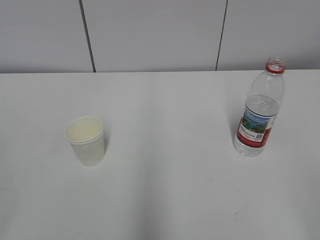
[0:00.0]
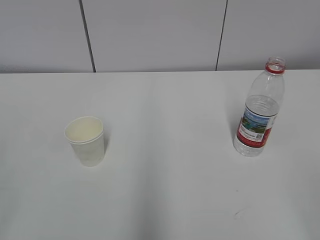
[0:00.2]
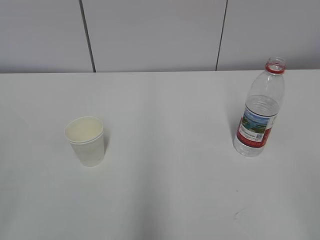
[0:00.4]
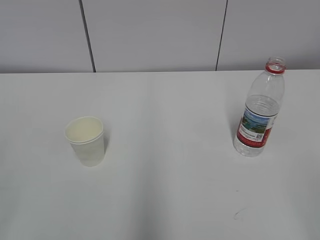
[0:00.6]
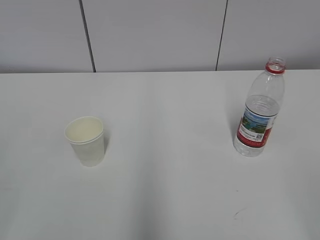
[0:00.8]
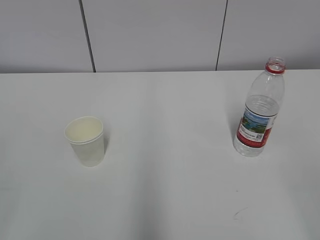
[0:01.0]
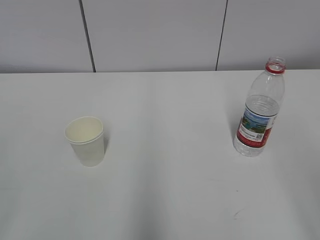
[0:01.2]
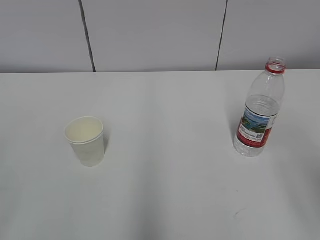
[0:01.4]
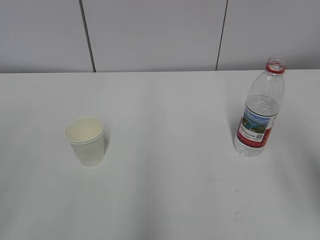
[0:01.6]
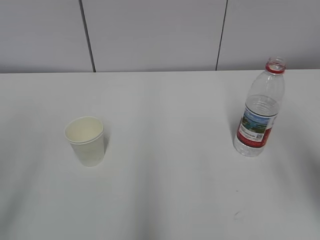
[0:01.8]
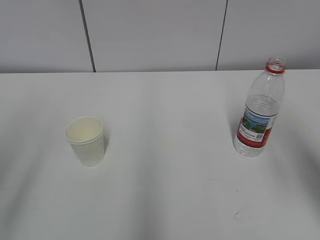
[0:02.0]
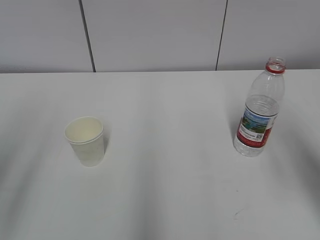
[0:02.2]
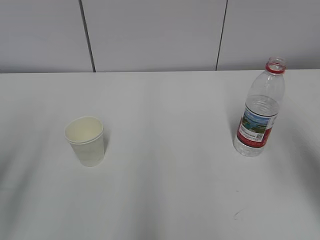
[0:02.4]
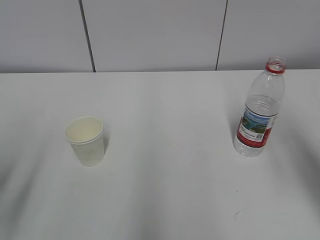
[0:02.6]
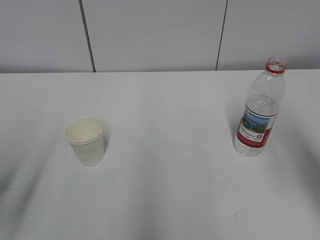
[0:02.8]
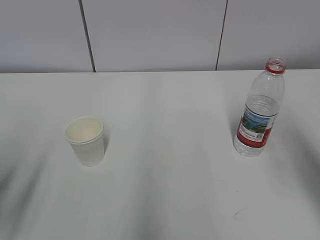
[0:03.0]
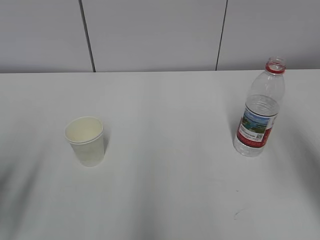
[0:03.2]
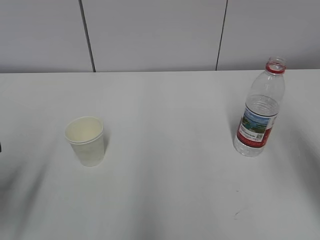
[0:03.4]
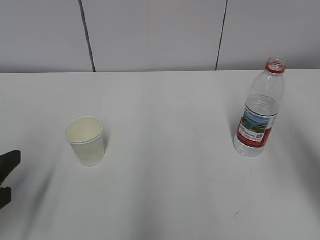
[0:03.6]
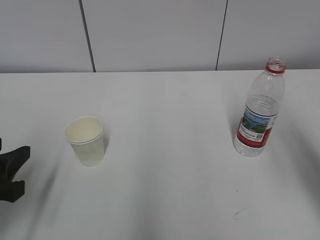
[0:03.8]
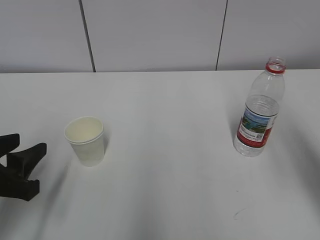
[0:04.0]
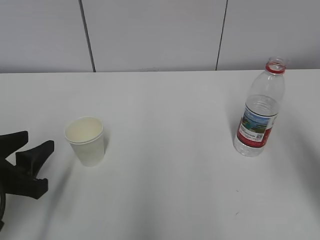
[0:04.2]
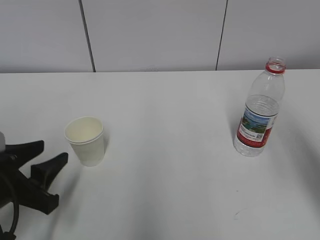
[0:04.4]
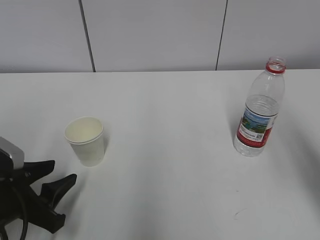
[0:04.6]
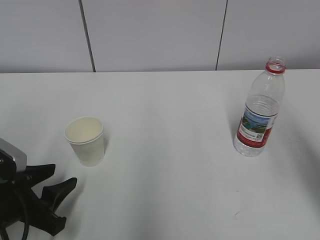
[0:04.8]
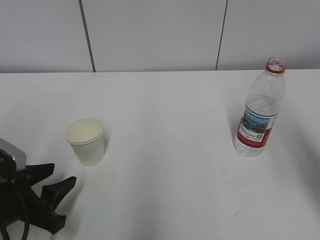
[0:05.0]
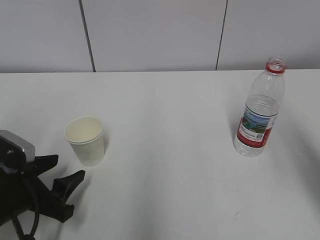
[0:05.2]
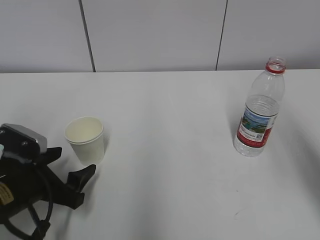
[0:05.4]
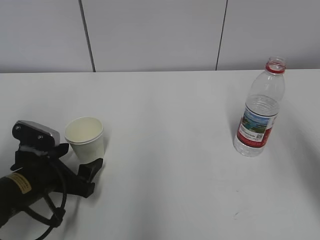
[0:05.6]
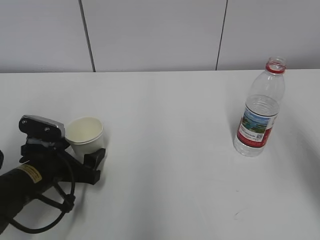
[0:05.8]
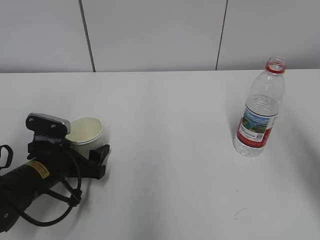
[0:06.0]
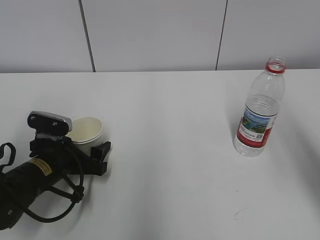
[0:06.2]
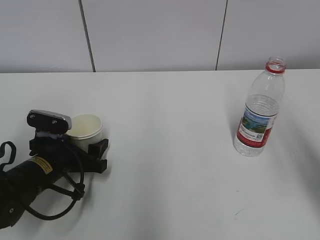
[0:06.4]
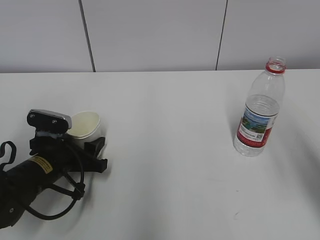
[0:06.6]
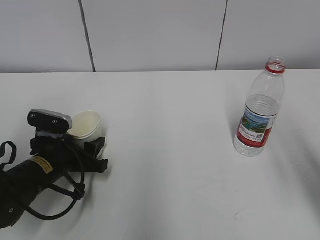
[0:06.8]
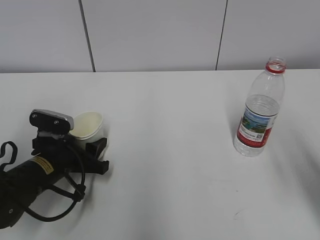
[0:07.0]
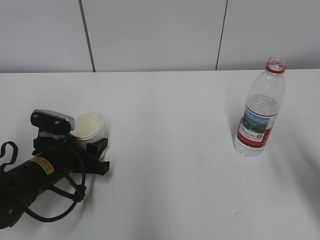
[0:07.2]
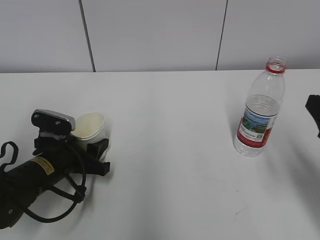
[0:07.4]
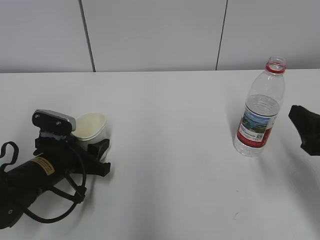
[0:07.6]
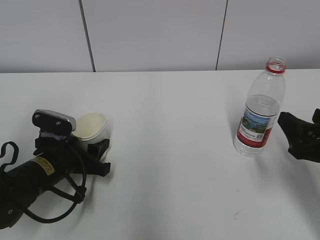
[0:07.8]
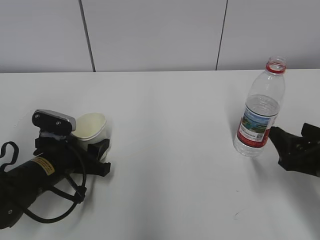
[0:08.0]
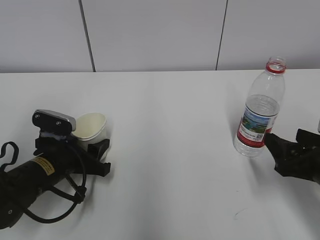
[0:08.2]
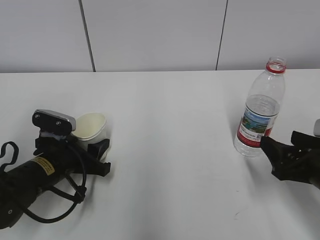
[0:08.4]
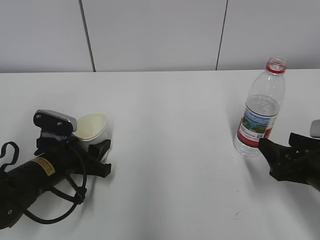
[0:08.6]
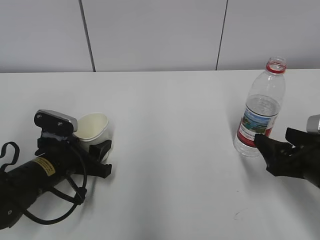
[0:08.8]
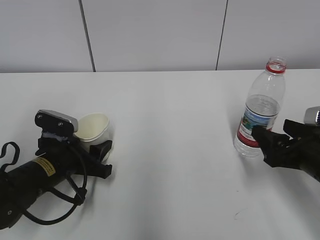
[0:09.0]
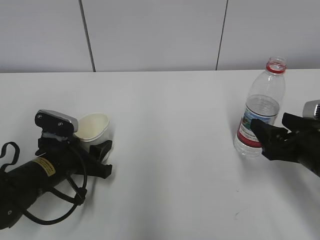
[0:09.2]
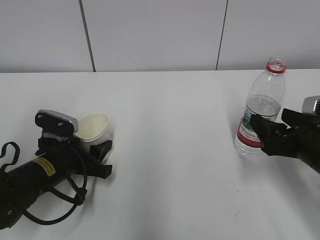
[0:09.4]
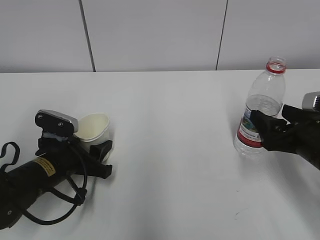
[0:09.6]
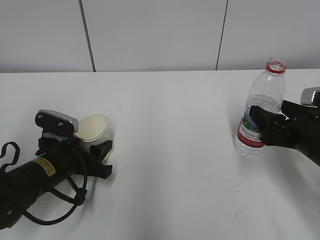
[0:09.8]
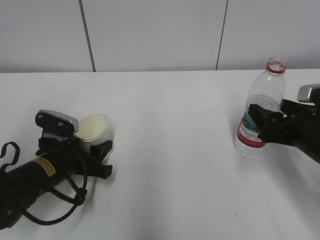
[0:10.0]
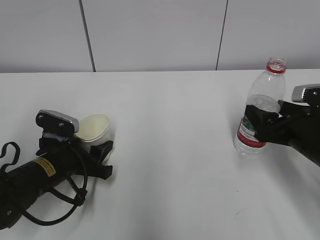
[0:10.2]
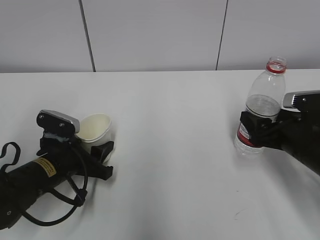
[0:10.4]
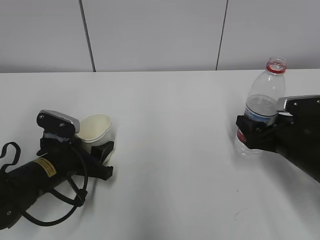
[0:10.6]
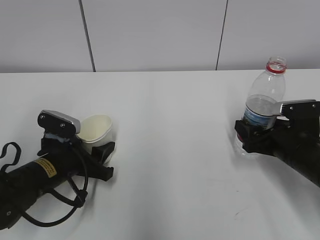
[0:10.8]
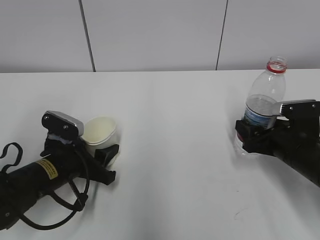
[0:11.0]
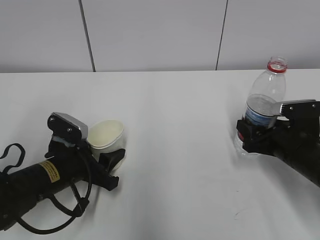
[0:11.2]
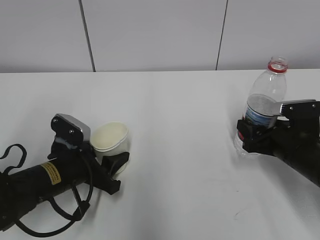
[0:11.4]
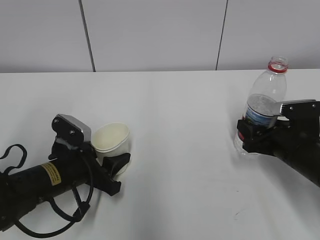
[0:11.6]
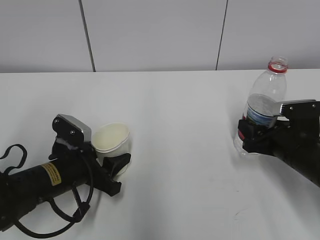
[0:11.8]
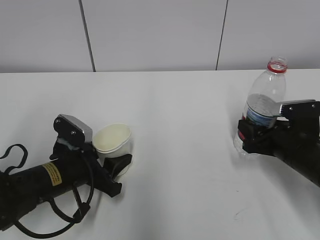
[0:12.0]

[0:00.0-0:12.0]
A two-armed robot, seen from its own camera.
Step, 0:00.0 to 0:05.4: Grab the paper cup with the left hand.
Step, 0:05.6 to 0:09.2: Grab the water bottle with the right hand.
0:01.6 to 0:03.0: The left gripper goes about 15 cm forward and downward.
0:03.0 to 0:04.4: The left gripper moves downward, forward and to the right, approximately 10 cm.
0:04.4 to 0:06.0: The left gripper heads forward and downward, covering roughly 10 cm, and opens up.
0:06.0 to 0:07.6: The right gripper heads downward, covering some 15 cm; the left gripper closes.
0:07.6 to 0:09.0: The right gripper moves downward, approximately 5 cm.
0:09.0 to 0:10.4: The right gripper moves about 5 cm.
0:10.4 to 0:12.0: The right gripper closes up.

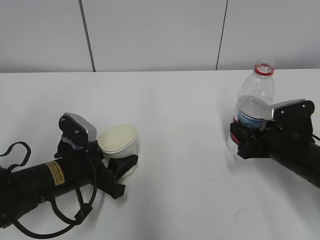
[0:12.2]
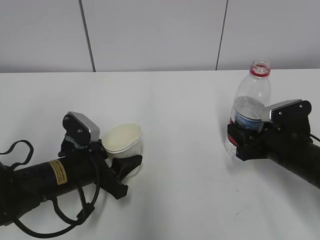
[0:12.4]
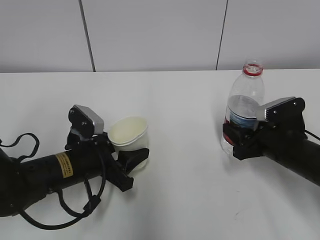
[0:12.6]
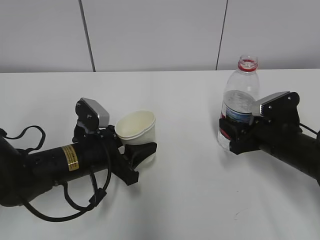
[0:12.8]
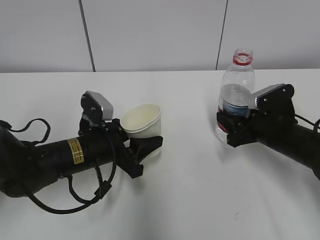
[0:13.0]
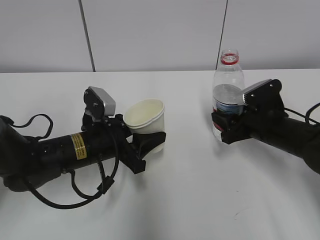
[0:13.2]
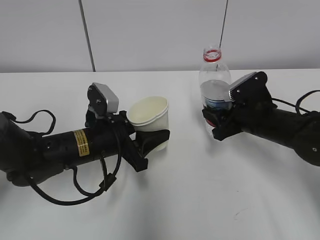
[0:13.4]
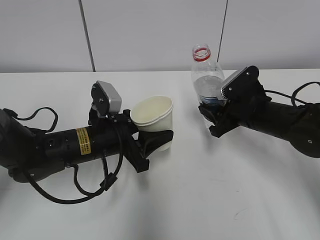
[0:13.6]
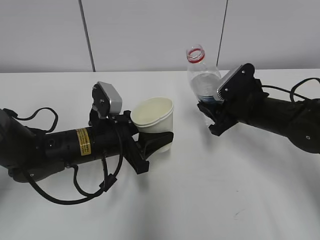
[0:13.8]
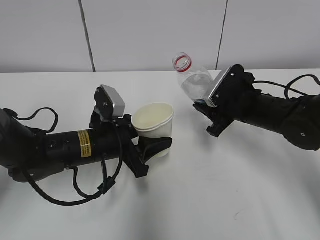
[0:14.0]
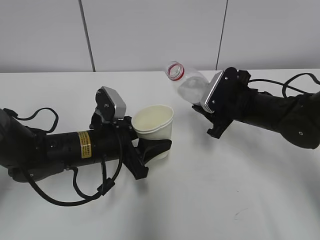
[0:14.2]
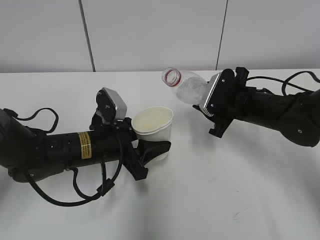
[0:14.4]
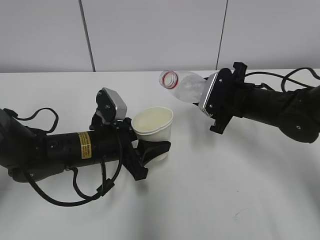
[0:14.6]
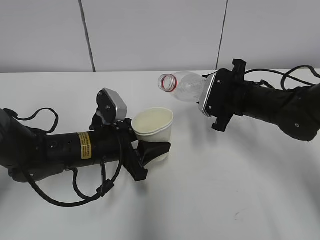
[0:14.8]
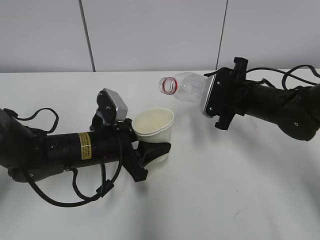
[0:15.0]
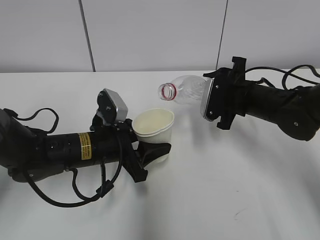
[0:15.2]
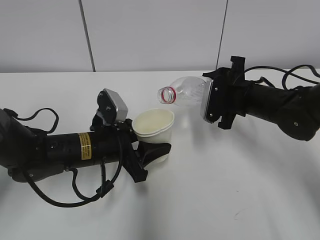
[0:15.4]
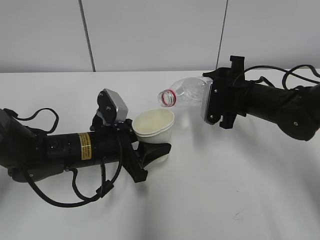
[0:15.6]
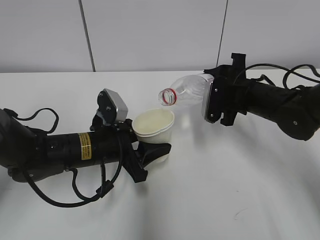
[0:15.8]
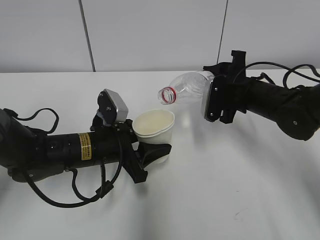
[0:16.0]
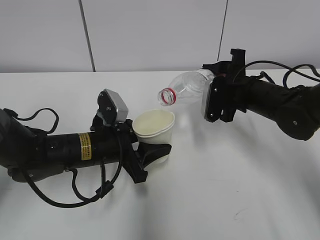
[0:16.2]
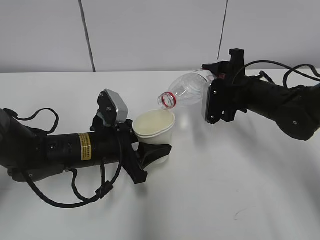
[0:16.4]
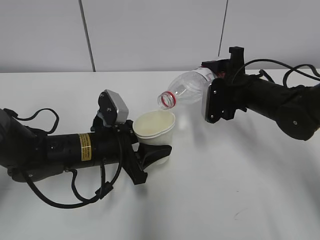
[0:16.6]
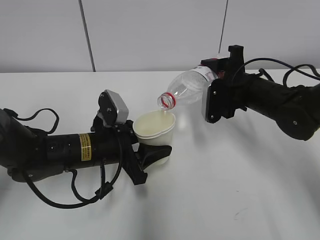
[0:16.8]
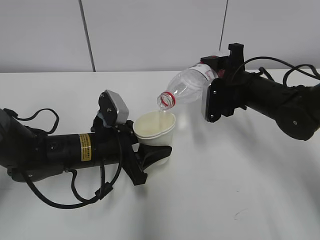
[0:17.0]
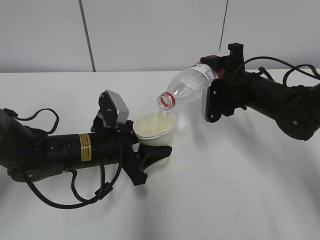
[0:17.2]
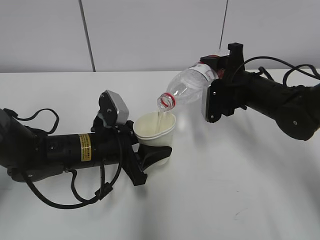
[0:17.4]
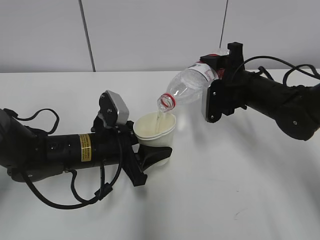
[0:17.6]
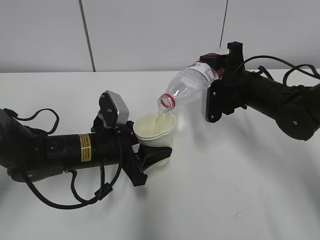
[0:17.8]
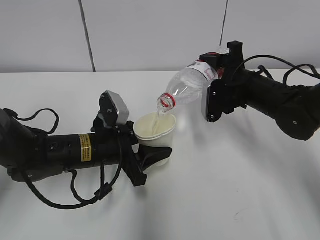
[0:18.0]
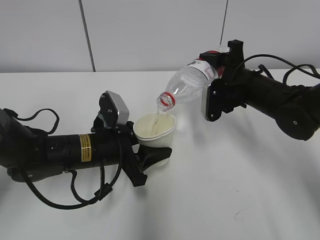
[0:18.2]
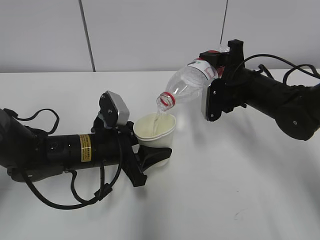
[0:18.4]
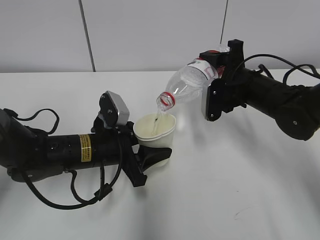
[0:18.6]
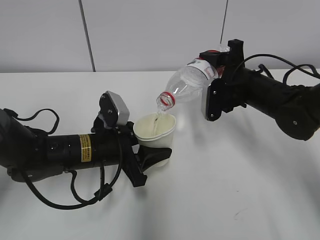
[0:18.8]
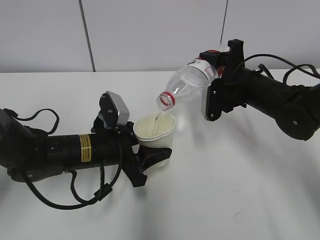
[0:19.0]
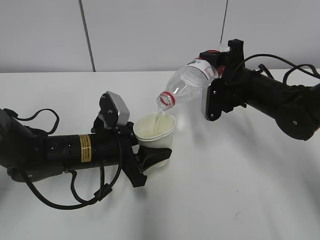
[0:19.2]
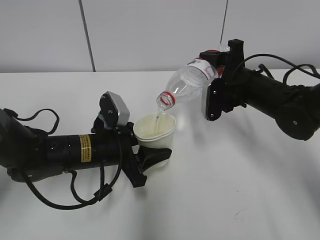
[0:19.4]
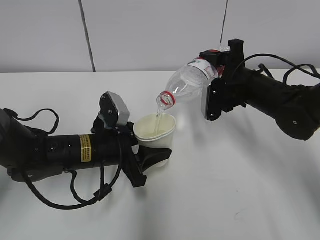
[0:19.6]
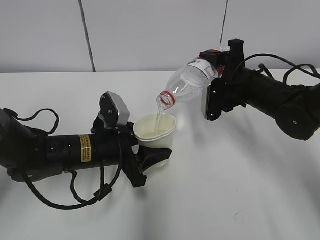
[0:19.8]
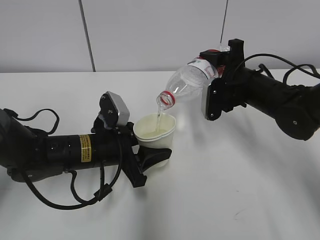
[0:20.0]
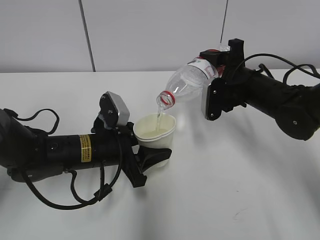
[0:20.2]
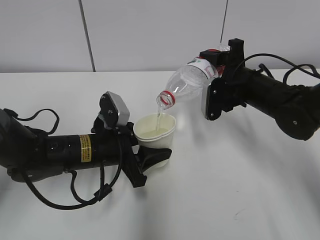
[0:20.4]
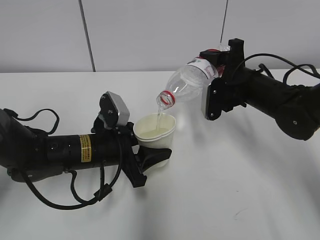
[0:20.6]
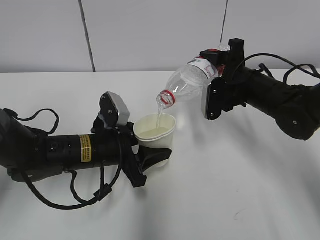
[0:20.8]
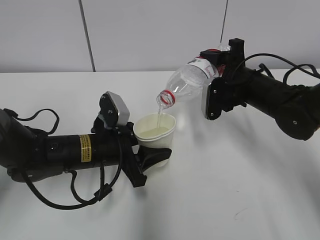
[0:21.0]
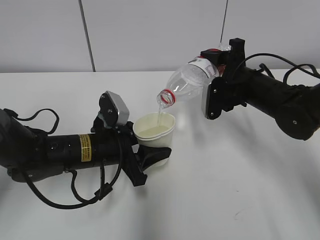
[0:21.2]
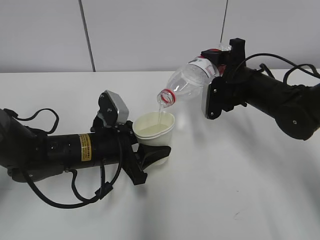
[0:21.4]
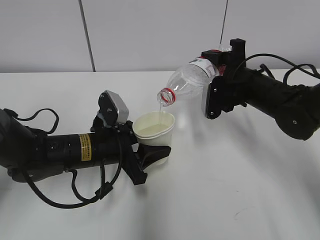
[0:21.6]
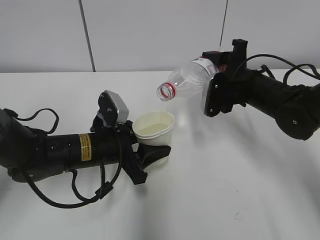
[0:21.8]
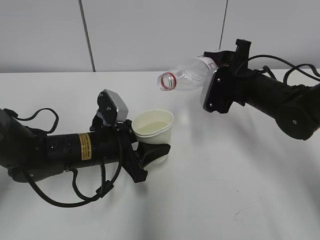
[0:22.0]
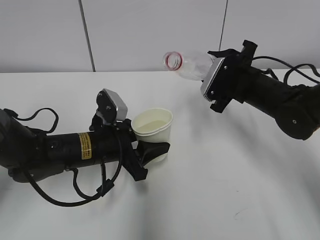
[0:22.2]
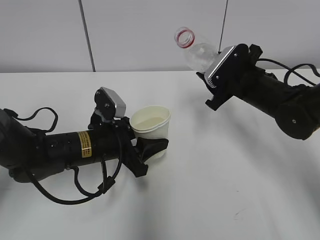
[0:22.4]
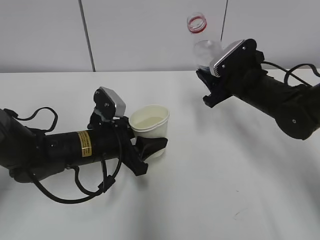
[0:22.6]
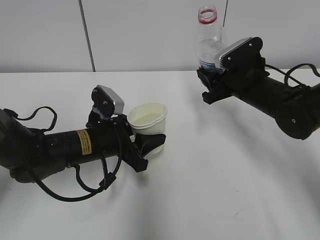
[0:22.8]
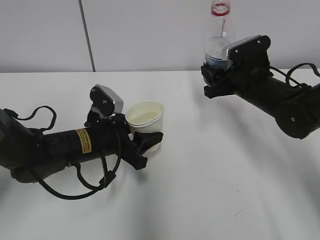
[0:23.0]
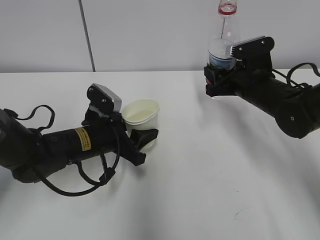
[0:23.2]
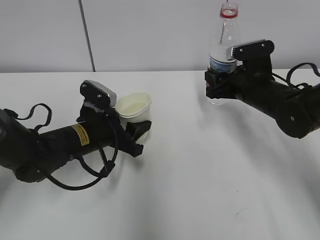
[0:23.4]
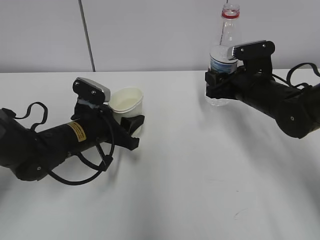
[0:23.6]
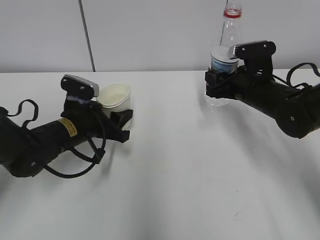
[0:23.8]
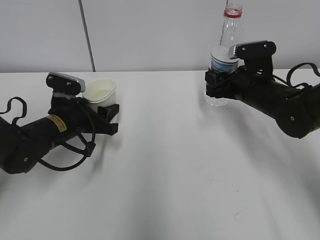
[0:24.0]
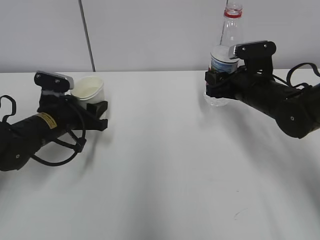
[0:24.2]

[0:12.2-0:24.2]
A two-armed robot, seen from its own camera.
Step, 0:13.8 to 0:18.2: Fill water with the left hand.
Step, 0:13.8 to 0:18.2: Pour water with the right hand.
Step, 0:19.4 to 0:21.6: Place the paper cup with the left hand.
0:12.2 to 0:13.8: The right gripper moves forward, some 5 cm. Meanwhile the left gripper ends up about 5 cm from where it was.
0:15.2 to 0:16.6: The grippers move only a little.
0:16.6 to 0:18.2: There are only small adjustments of the grippers.
0:18.2 to 0:21.2: Both grippers stay put.
0:22.6 to 0:24.2: The left gripper travels to the left and forward by roughly 10 cm.
